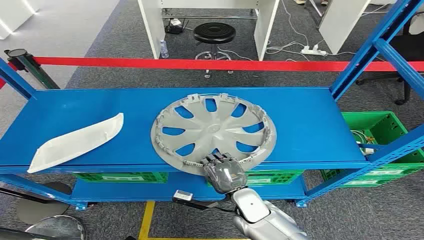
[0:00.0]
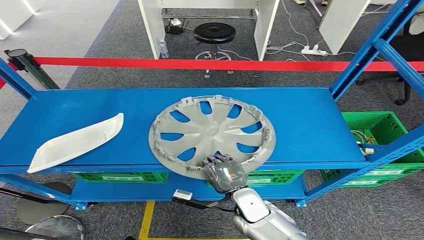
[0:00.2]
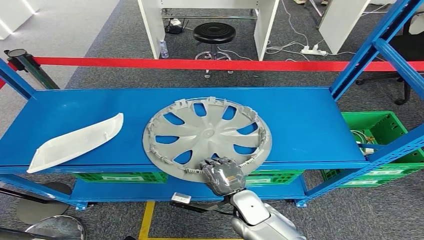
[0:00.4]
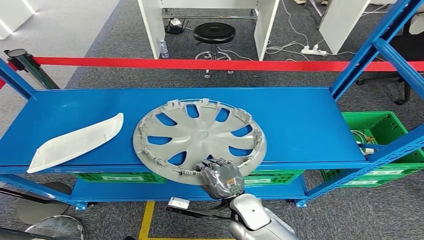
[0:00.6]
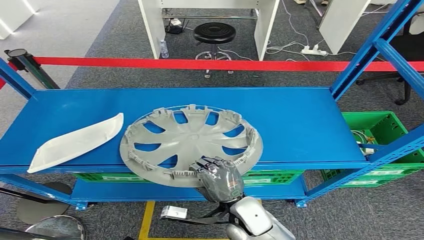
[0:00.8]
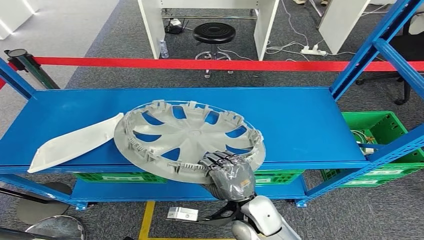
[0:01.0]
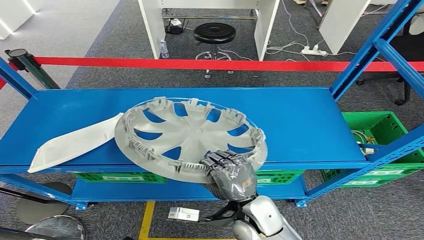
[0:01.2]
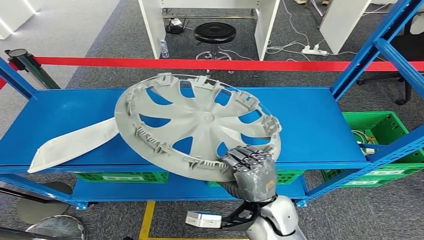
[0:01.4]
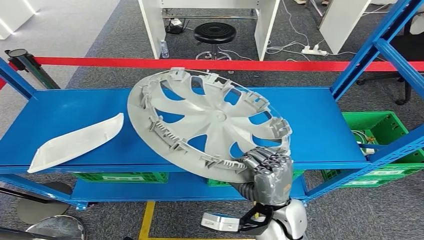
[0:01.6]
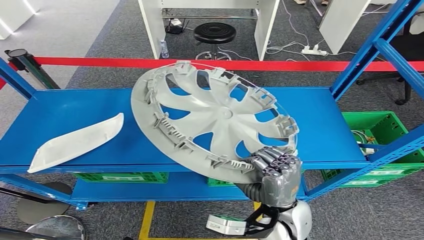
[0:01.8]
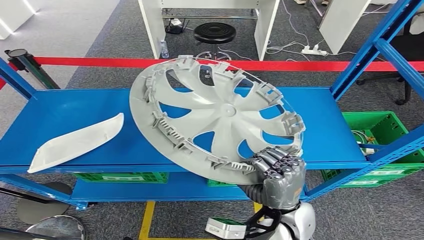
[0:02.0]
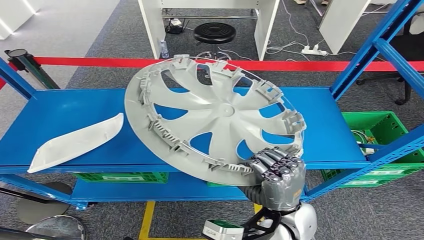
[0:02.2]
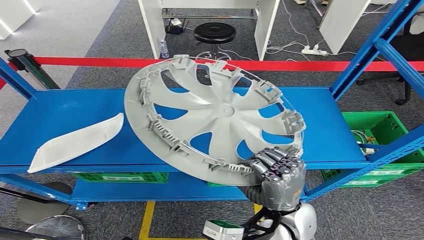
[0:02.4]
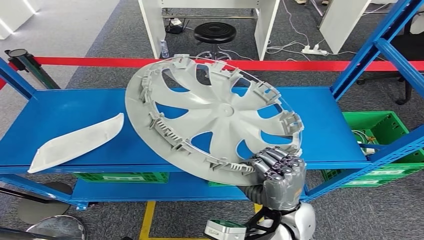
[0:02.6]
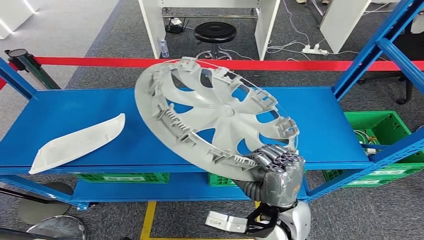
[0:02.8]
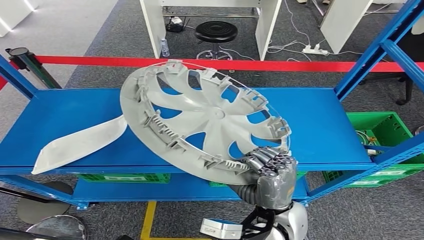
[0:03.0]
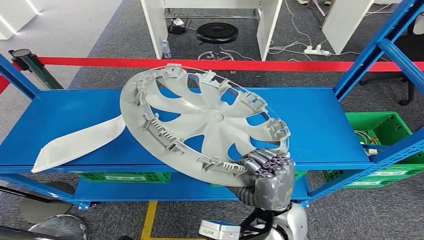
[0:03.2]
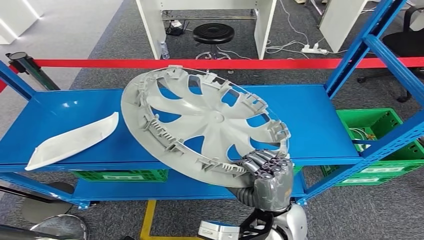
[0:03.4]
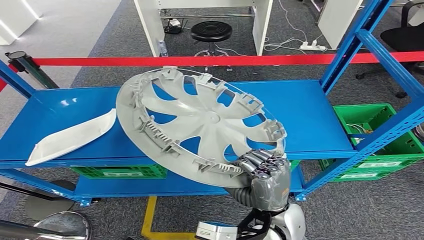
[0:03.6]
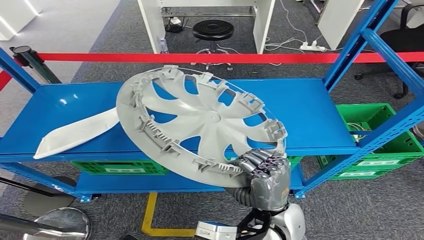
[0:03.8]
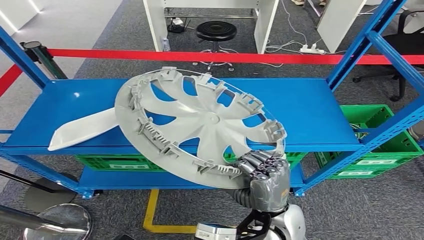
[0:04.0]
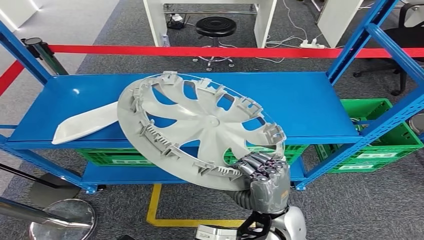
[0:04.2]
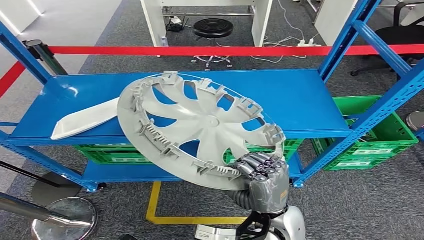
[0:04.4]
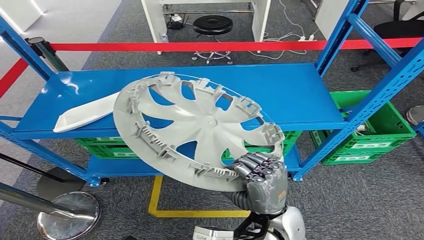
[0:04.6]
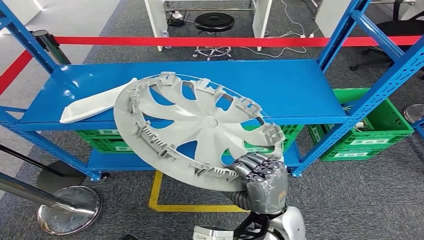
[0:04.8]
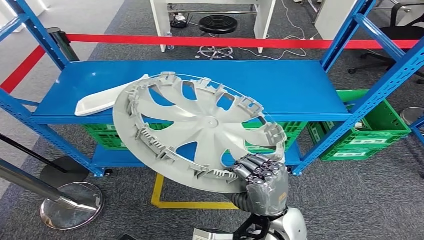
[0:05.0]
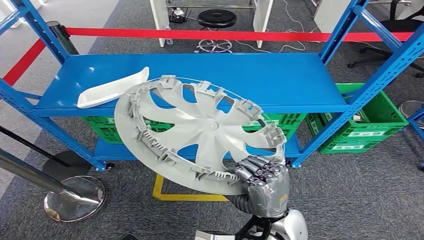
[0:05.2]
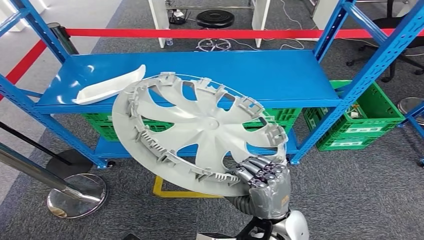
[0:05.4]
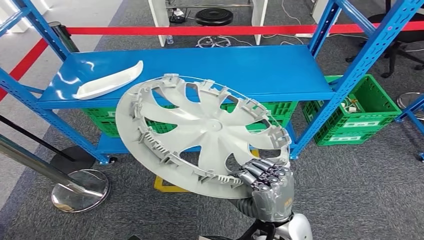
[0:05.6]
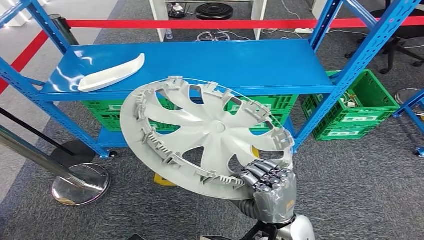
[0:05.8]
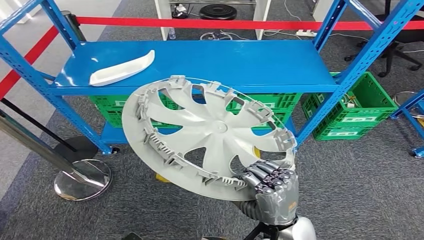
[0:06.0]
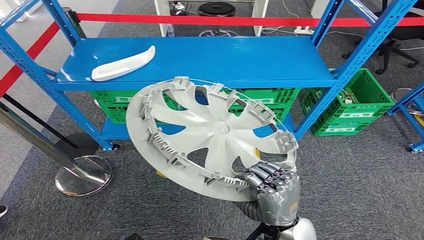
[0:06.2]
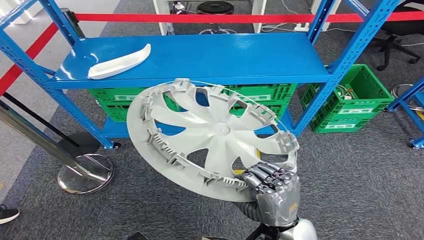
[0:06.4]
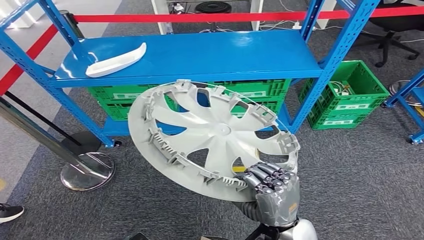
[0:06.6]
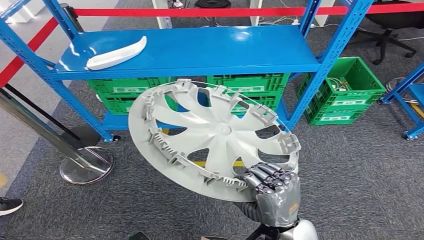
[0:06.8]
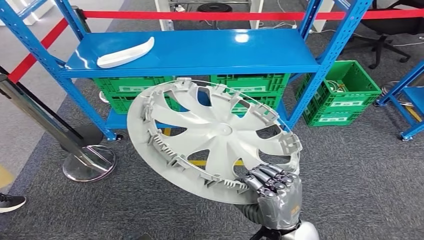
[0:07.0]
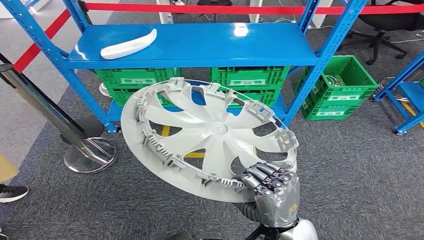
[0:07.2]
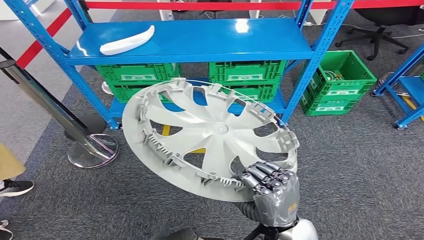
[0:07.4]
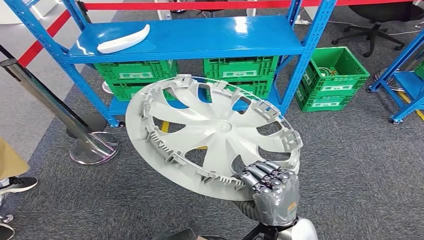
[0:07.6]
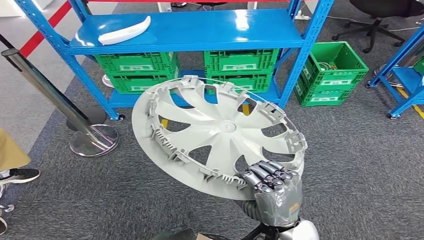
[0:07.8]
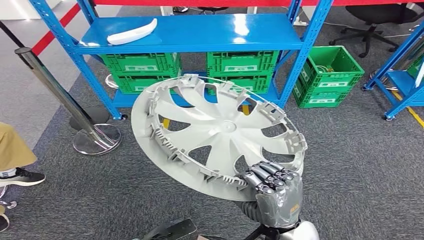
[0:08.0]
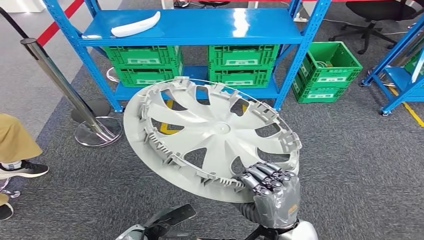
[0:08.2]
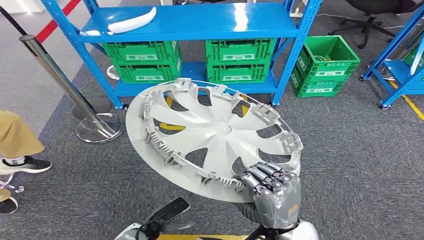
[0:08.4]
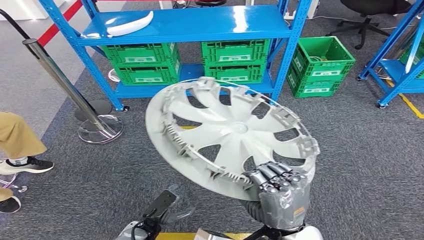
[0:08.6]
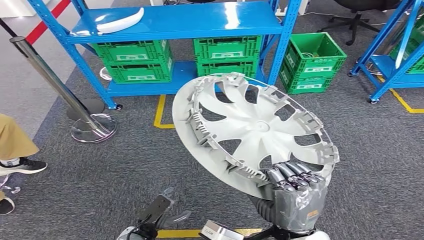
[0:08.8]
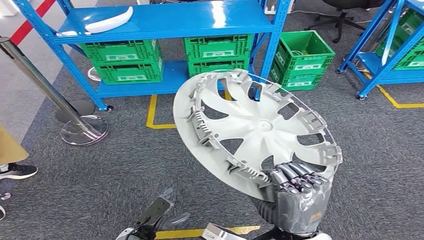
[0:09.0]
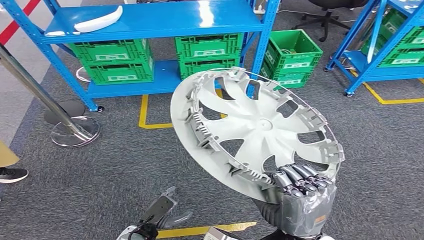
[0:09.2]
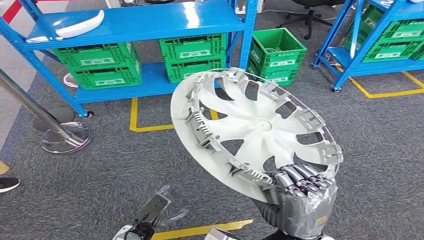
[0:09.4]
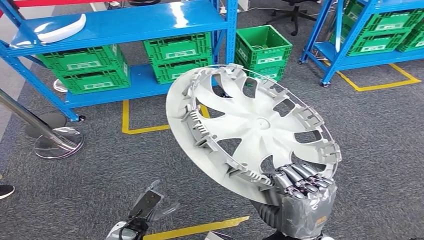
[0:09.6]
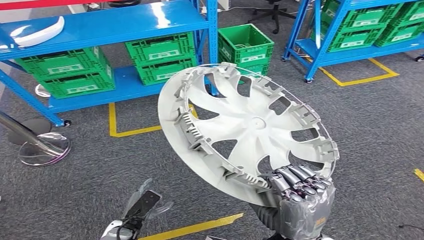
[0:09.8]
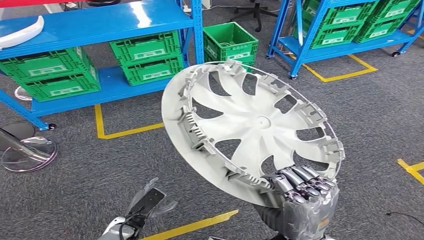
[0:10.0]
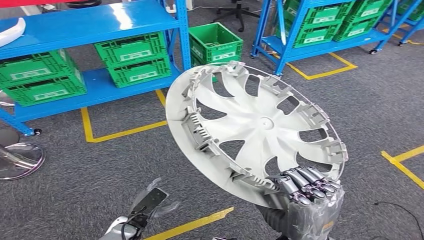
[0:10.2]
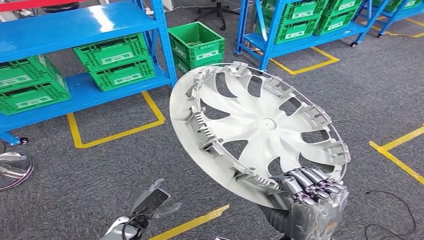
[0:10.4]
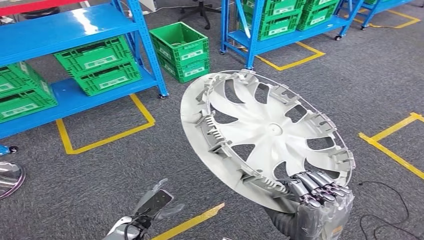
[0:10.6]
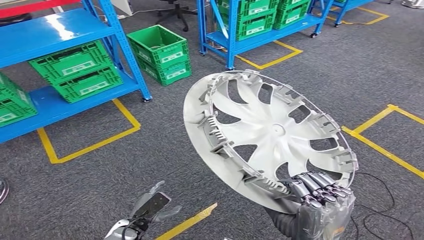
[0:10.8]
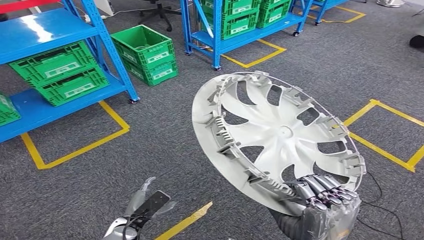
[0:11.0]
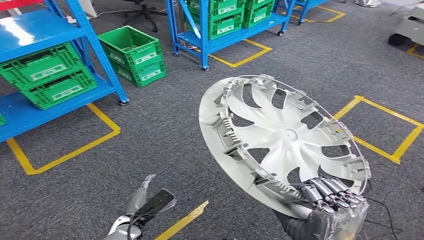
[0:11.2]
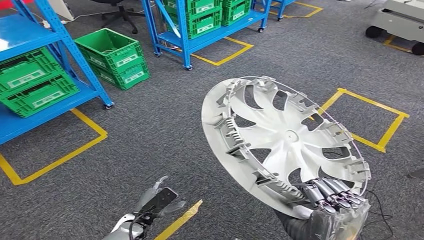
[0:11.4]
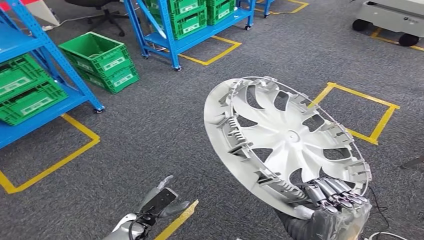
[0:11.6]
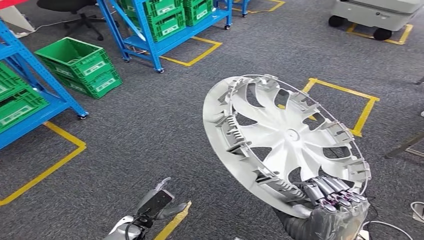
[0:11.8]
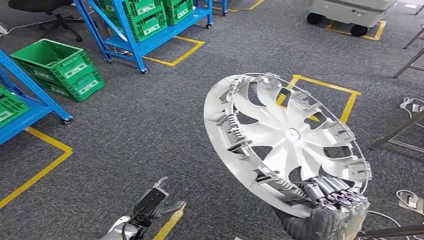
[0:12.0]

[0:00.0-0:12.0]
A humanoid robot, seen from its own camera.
Step, 0:00.0 to 0:03.2: Pick up the small component from the shelf.
0:01.6 to 0:03.0: There are only small adjustments of the hands.

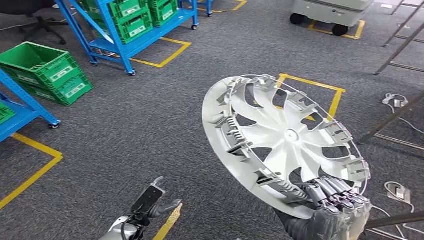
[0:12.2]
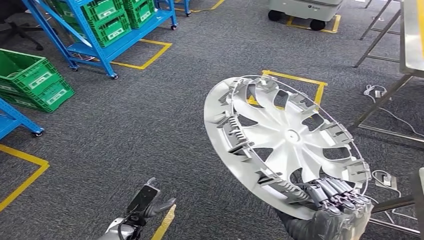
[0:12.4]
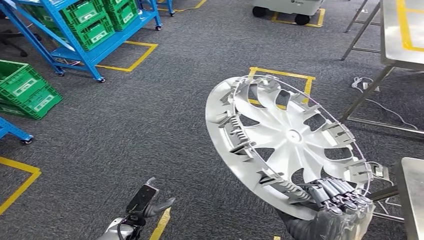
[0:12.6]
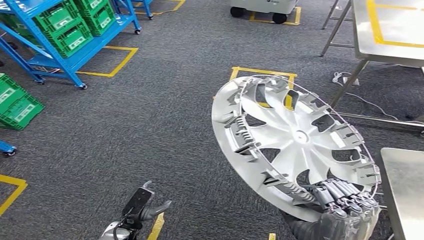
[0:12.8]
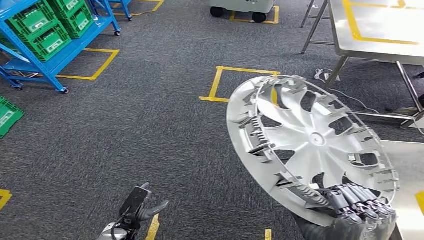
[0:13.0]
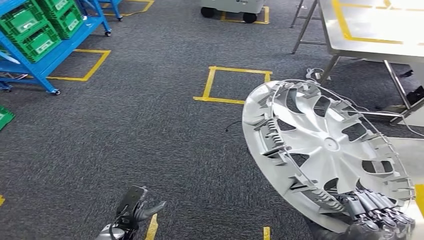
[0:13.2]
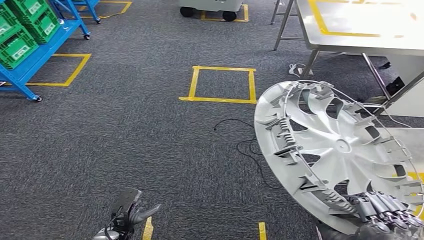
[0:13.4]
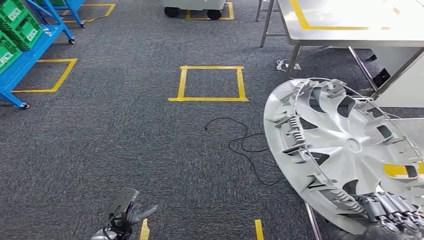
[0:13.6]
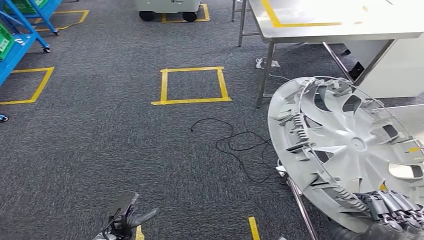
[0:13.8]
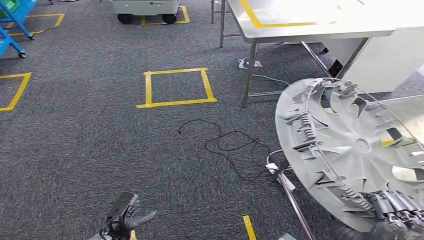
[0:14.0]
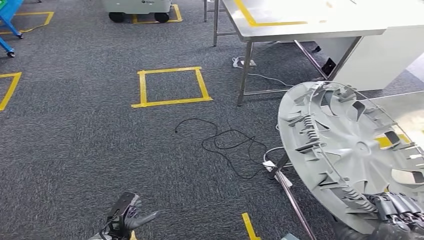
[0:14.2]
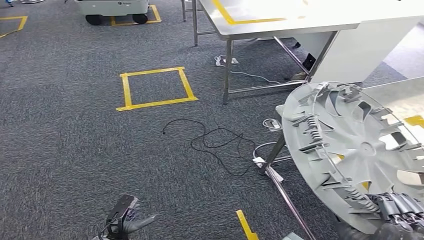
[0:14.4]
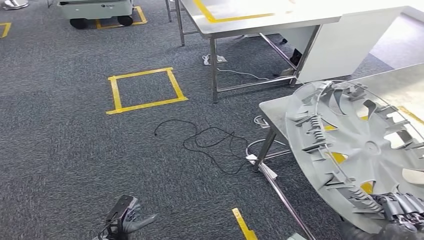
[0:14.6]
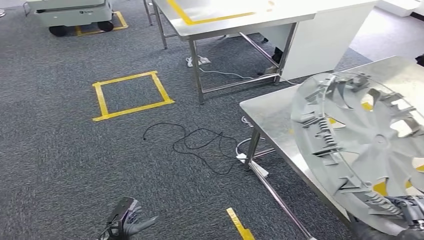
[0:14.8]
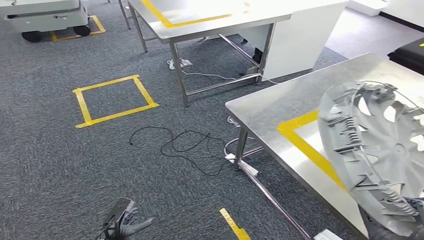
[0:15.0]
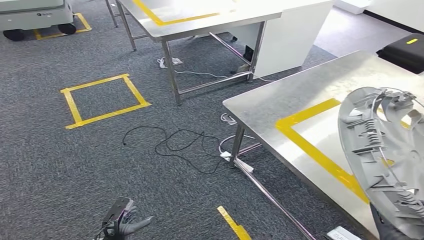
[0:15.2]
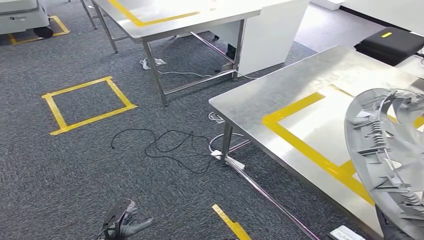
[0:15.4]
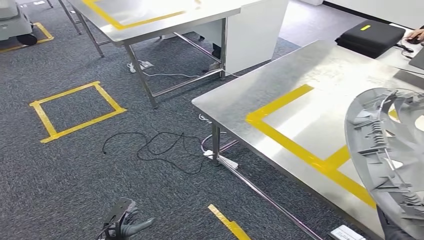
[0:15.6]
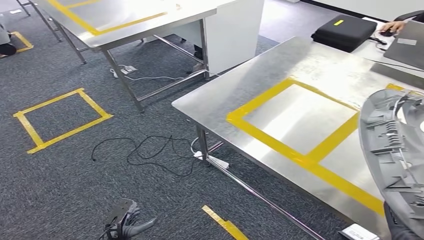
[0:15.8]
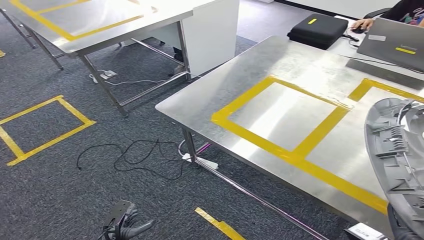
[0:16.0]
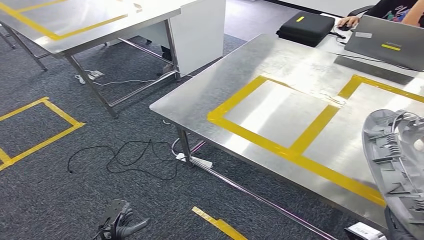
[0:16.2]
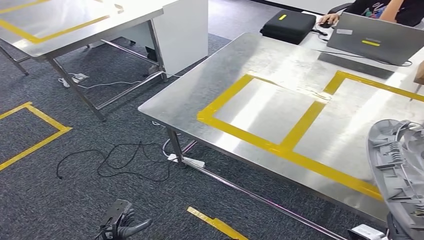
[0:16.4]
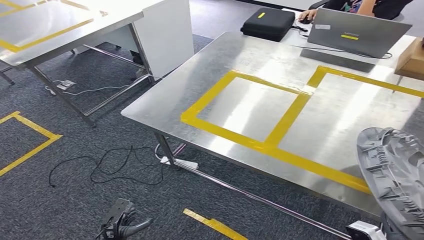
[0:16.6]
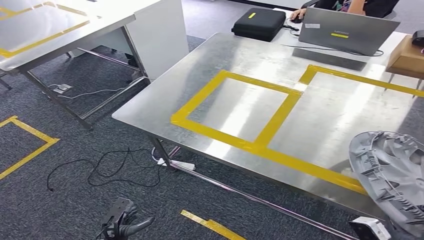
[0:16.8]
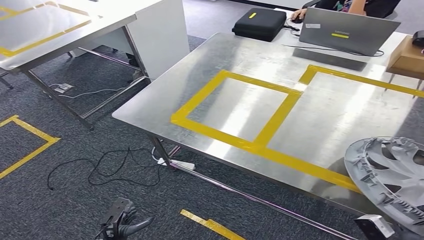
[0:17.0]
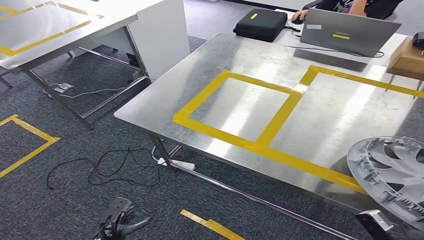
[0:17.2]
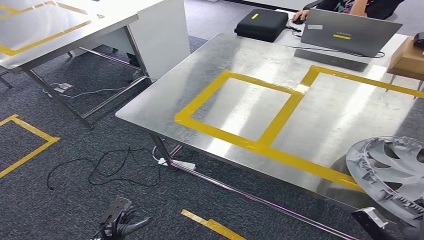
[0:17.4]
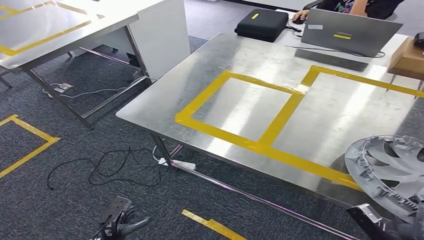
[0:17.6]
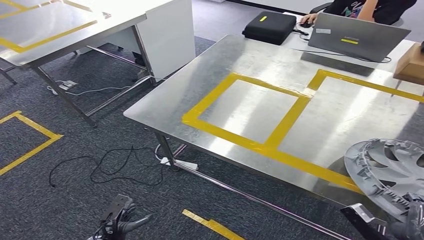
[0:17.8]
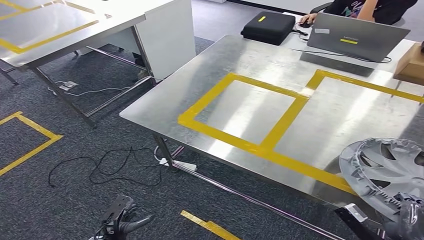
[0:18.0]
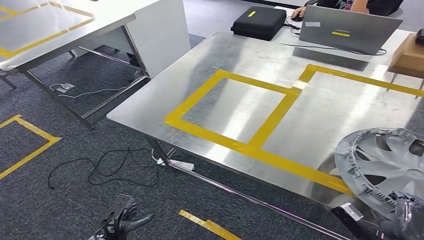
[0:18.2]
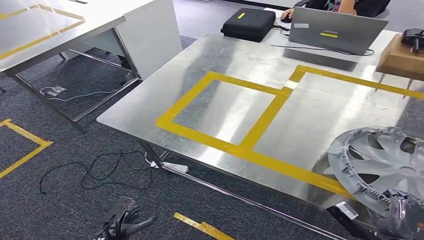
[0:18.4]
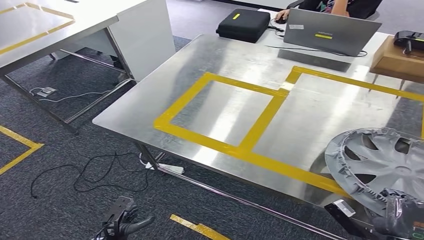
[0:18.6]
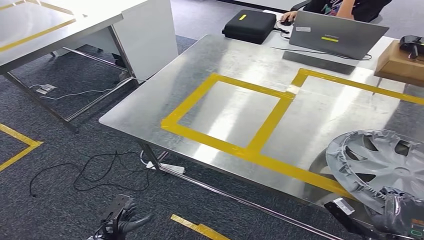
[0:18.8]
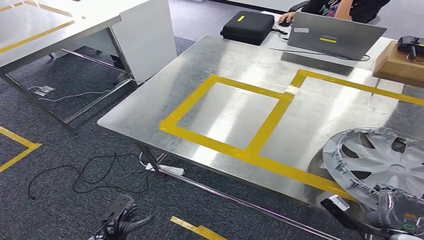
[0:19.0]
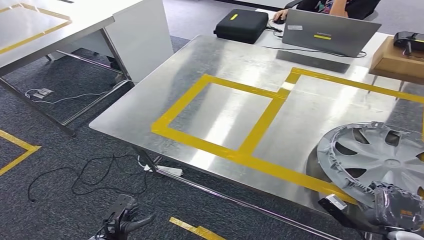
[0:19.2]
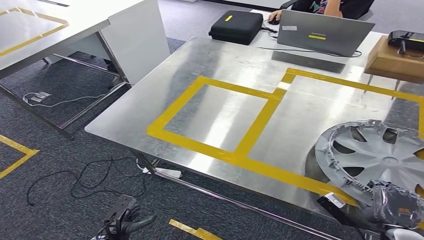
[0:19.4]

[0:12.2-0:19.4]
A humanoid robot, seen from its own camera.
Step, 0:12.2 to 0:15.6: Move the small component to the workbench.
